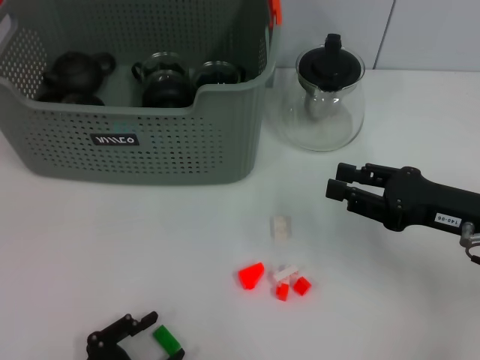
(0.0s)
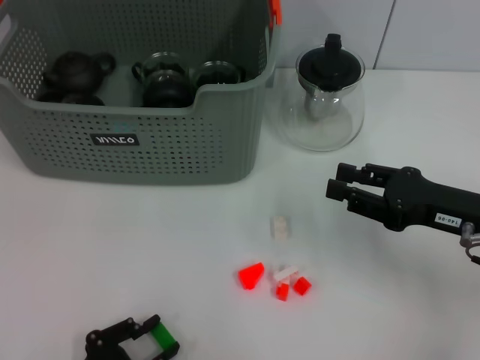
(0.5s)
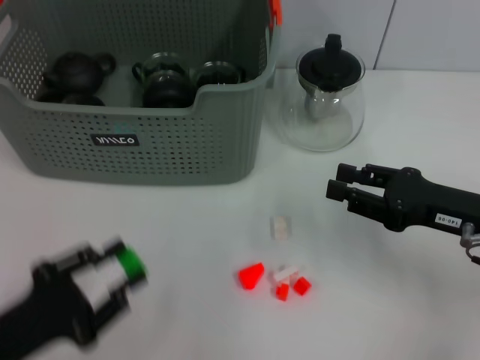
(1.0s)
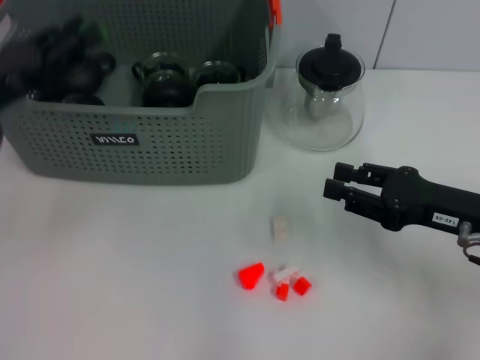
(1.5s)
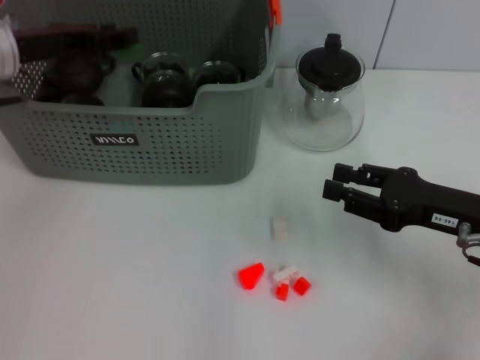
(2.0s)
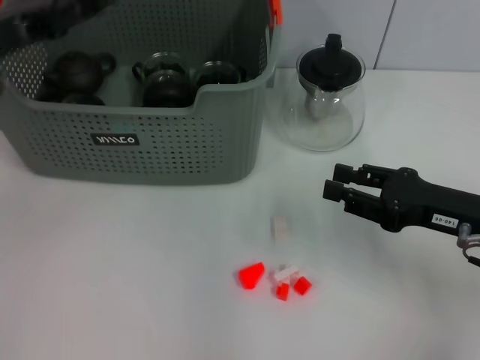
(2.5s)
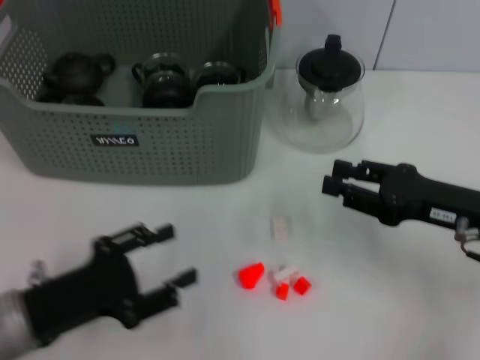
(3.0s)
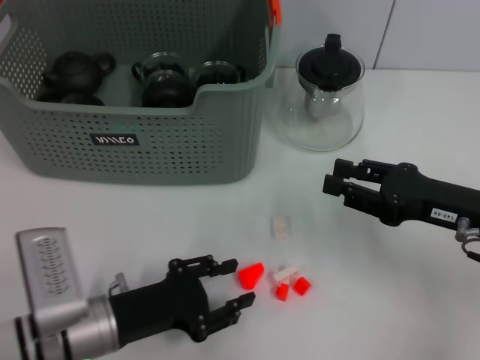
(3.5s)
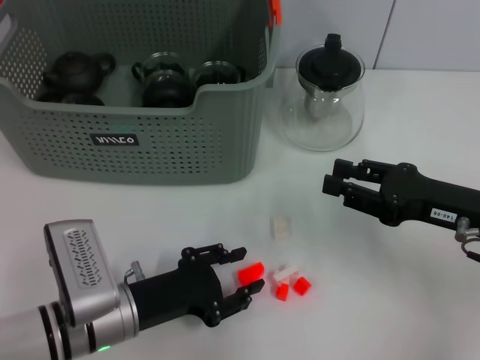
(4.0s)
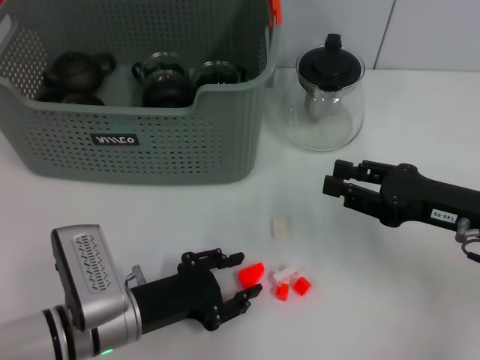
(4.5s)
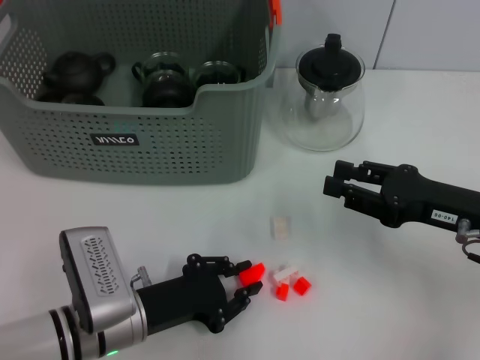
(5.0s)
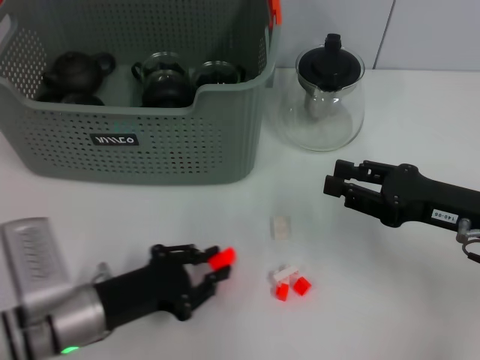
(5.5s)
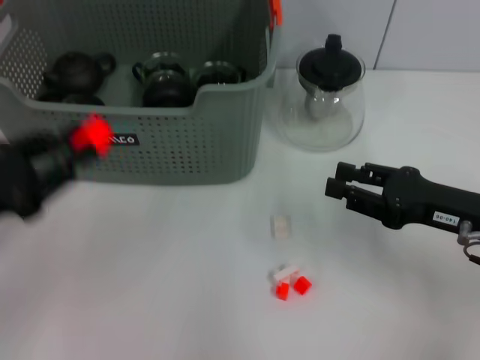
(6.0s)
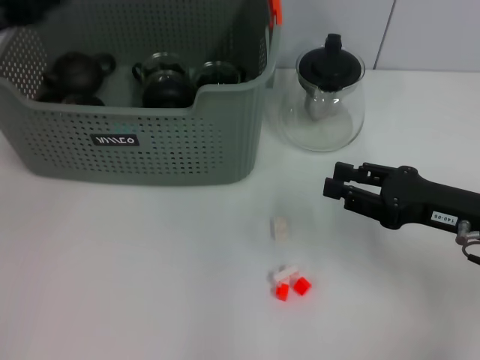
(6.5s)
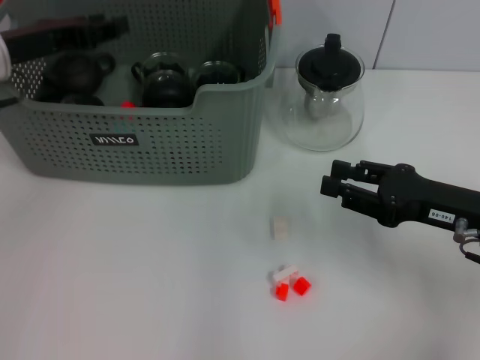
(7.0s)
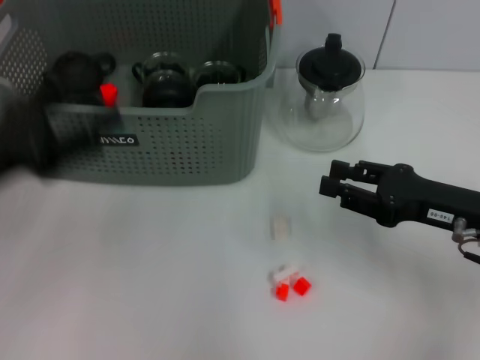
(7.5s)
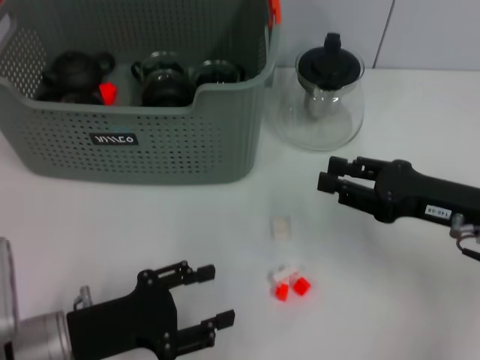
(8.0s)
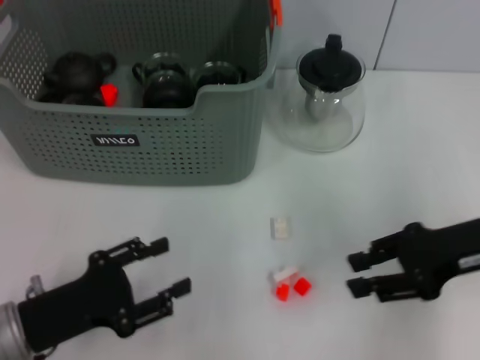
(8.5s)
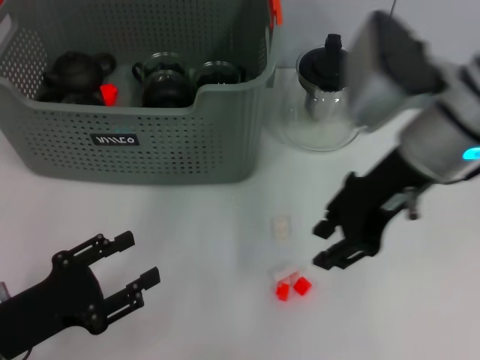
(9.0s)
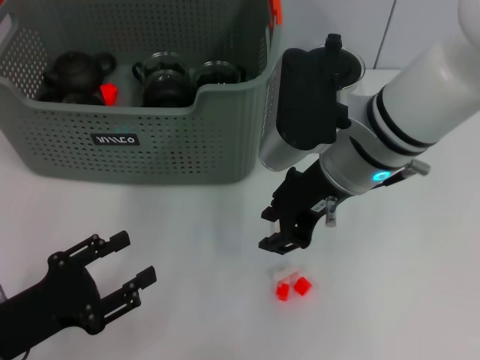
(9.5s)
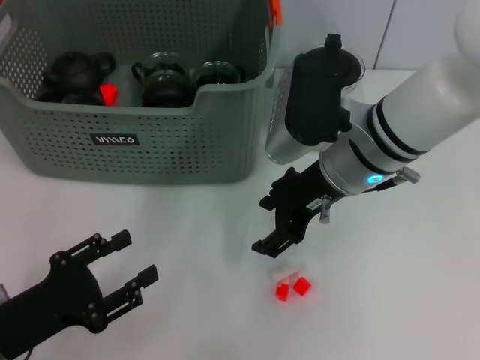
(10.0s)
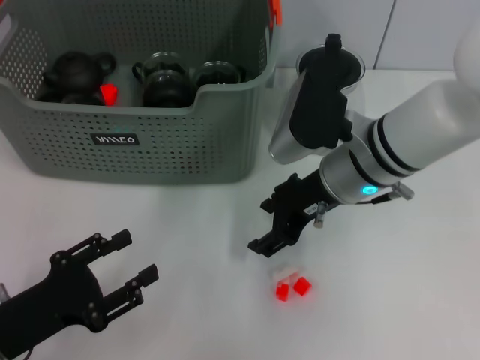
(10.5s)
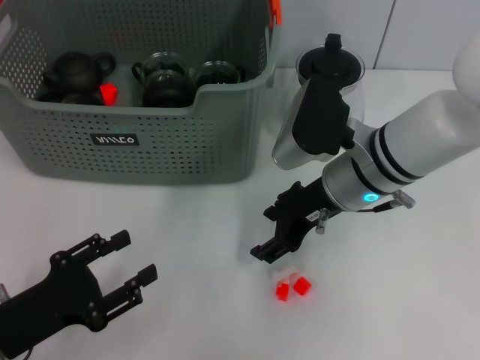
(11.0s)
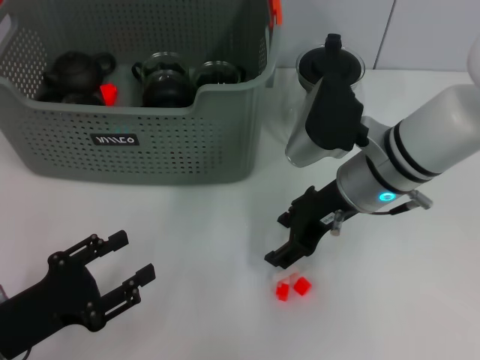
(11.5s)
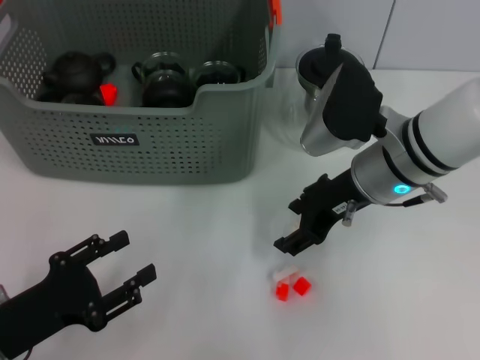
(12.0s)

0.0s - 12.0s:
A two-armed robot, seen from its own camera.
Task of the whole recording: pick up the teacup on the table and place it into the storage bin, pick up the block on the table and place it into the storage bin.
Step, 1.0s - 2.0s: Place the green block in the storage box with left gripper.
Step, 2.5s - 5.0s: Grasp the orange block with left gripper.
Step, 5.5s - 7.5s: Place the orange block in the storage box with left gripper.
0.0s - 2.0s: The left gripper travels forward and upward by approximately 35 cm.
2.0s - 4.0s: The left gripper moves downward, backward and to the right, about 25 cm.
4.0s - 6.0s: The left gripper is displaced to the left and upward by about 15 cm.
6.0s - 8.0s: The left gripper travels to the right and downward by approximately 10 cm, moves about 15 cm forward and comes back, and opens up.
8.0s - 10.0s: The right gripper heads to the left and forward, covering about 15 cm. The left gripper travels to the left by approximately 5 cm.
10.0s - 12.0s: The grippers move only a little.

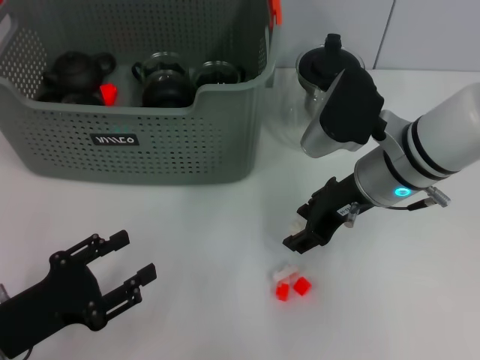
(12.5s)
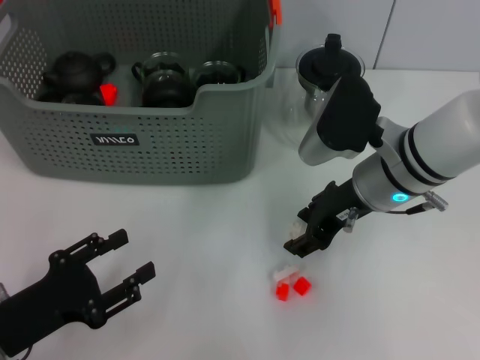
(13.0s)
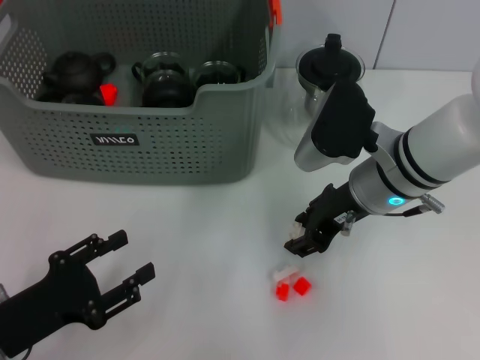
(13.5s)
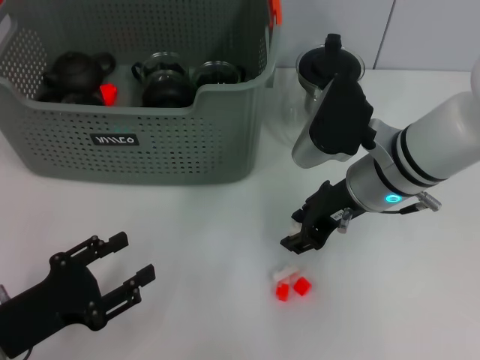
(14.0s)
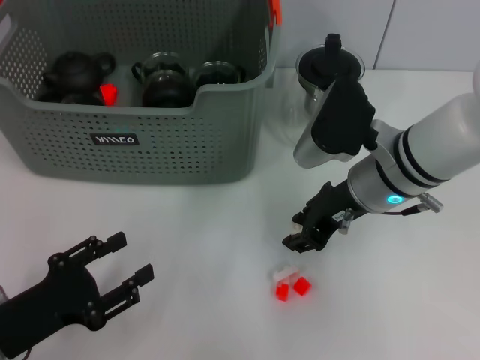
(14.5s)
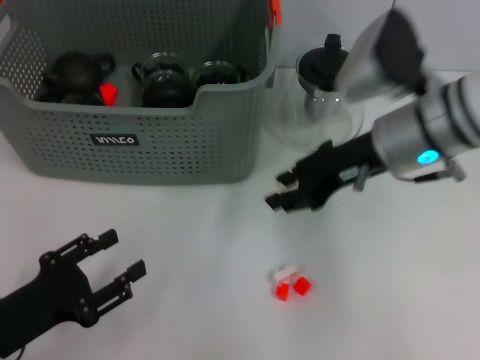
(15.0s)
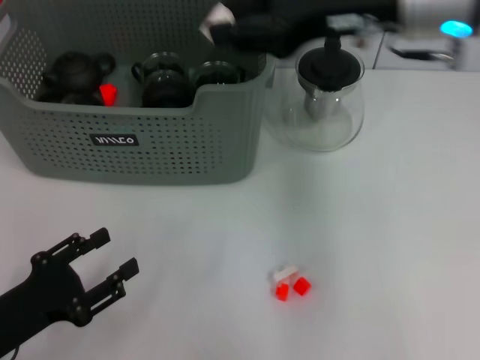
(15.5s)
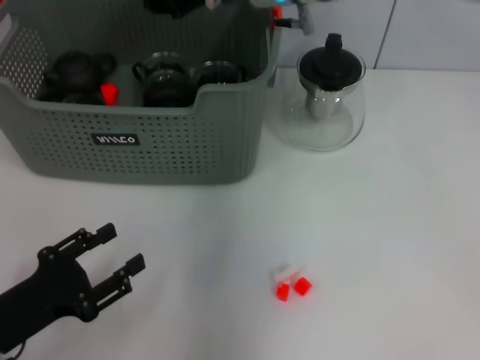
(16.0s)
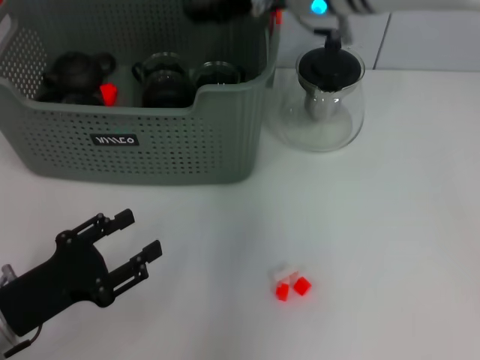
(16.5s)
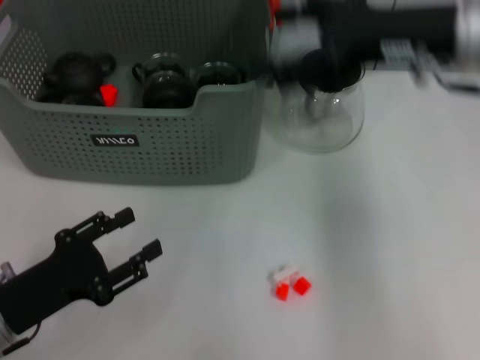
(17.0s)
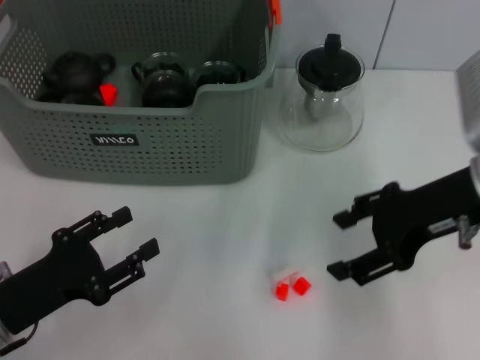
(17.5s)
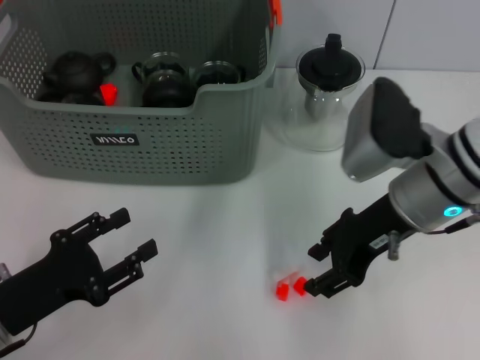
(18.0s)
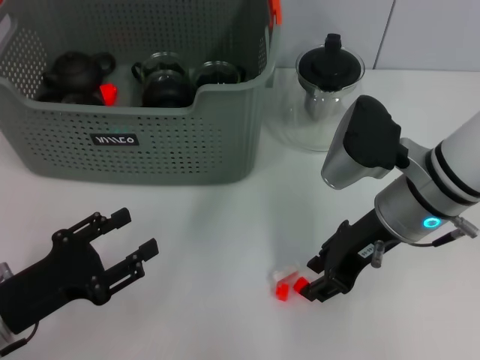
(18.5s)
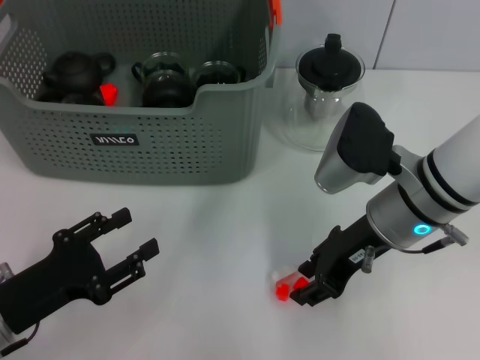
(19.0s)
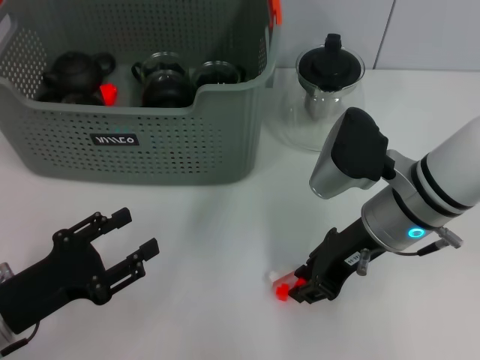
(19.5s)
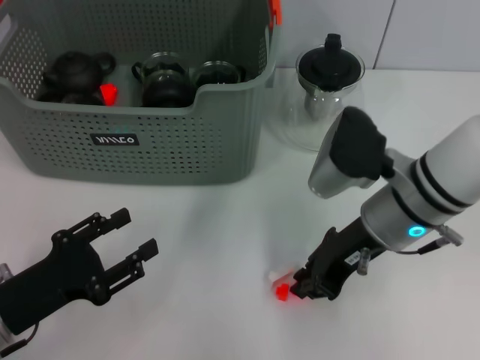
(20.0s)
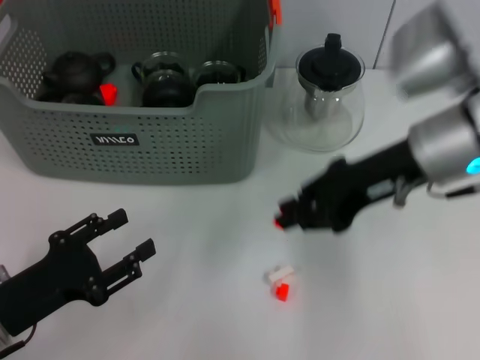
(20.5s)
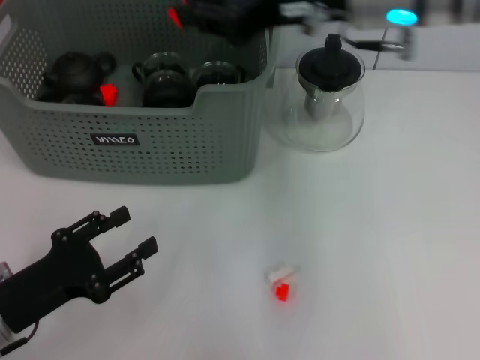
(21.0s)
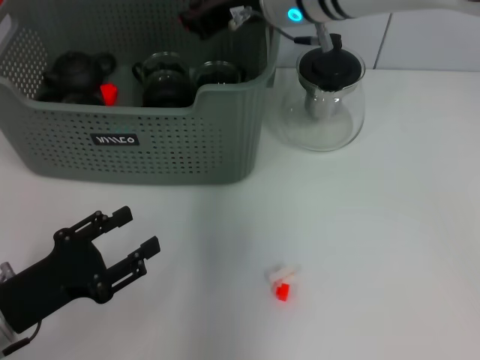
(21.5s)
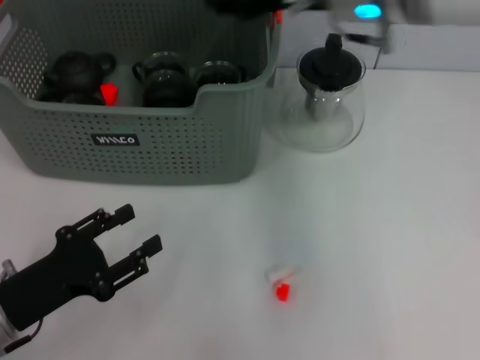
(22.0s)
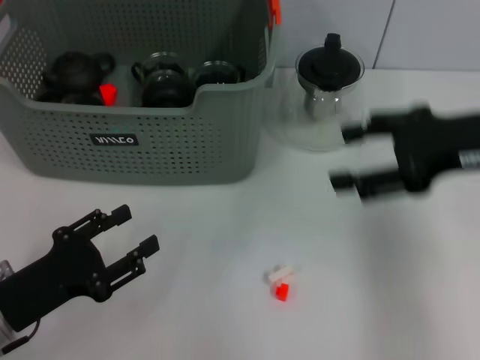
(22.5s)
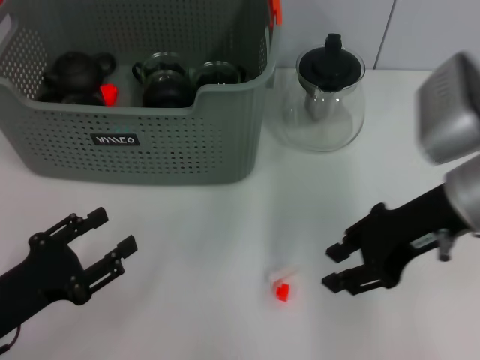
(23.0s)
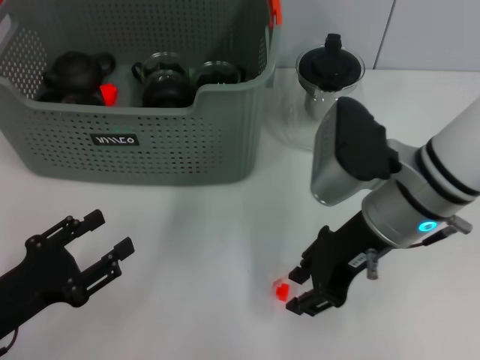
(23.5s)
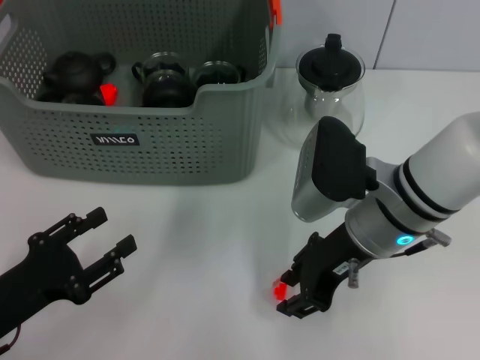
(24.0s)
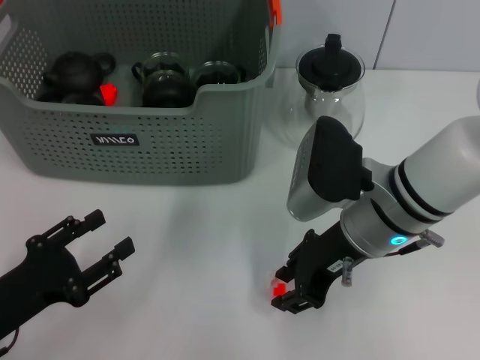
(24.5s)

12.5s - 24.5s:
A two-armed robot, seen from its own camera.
Task of the whole recording: pick up the teacup on the table and place it into the storage bin, pick up the block on the table and place it into the storage bin.
Step, 12.5s - 14.5s: Grasp the white block with right gripper.
Step, 15.0s - 16.0s: Place the white block in the storage box with right gripper.
Step, 16.5s - 19.5s: Grasp the orange block with right gripper.
Step, 20.0s - 22.0s: Place the orange block in the storage box with right gripper.
12.5s - 14.5s: Both grippers stay about where they are.
14.5s - 16.5s: The right gripper shifts about 15 cm upward, forward and to the left.
16.5s - 18.5s: The right gripper heads backward, downward and to the right, covering about 20 cm.
18.5s - 20.5s: The right gripper shifts roughly 5 cm upward, and closes.
20.5s - 22.5s: The right gripper shifts about 10 cm to the right, and opens up.
22.5s - 24.5s: The right gripper is displaced to the left and downward by roughly 15 cm, and closes up.

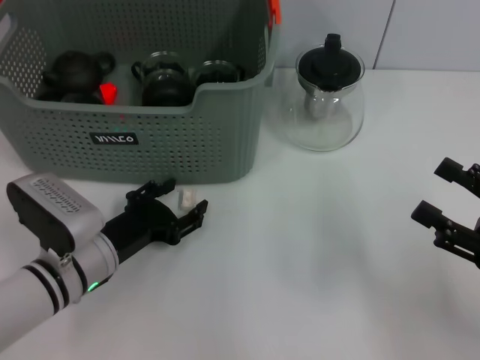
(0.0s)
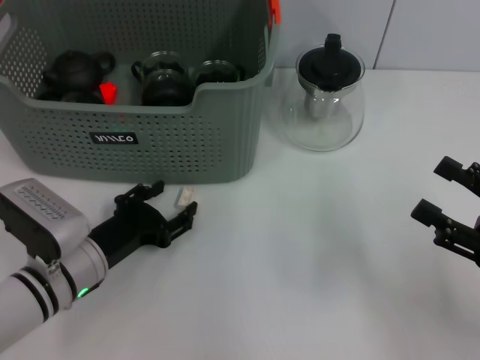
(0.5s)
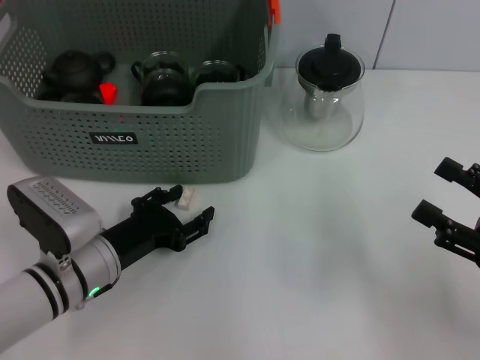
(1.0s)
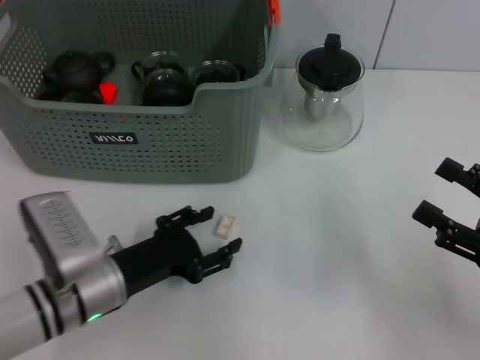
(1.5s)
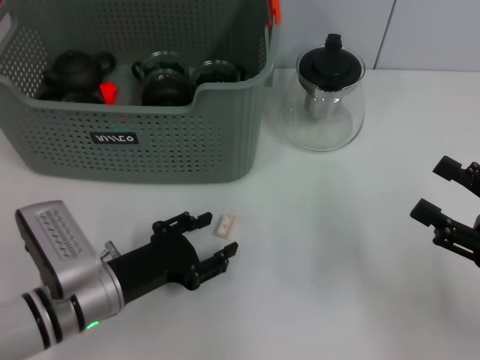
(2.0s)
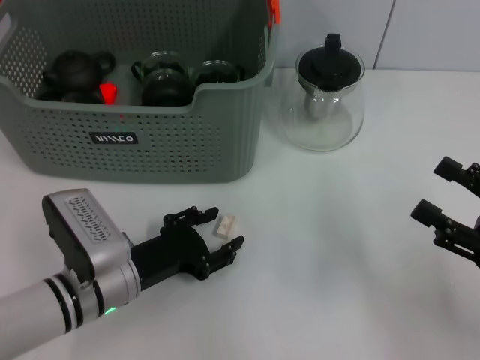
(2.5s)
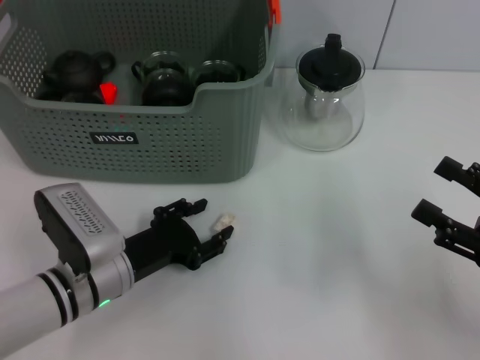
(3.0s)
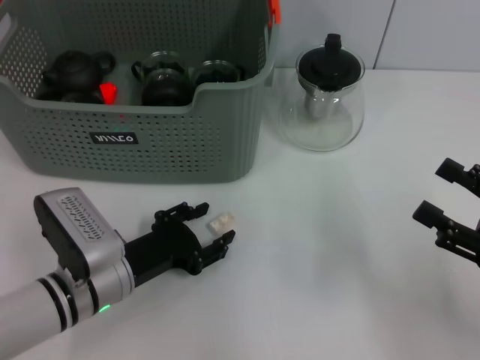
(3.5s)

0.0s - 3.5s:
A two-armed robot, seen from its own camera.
Task of the whole recording: pick up the teacup on the table and place it into the storage bin, pick up the block on the table and place it into the storage bin.
0.0s - 3.5s: There are only small adjustments of the grippers.
